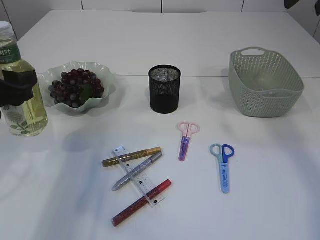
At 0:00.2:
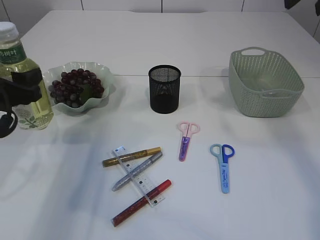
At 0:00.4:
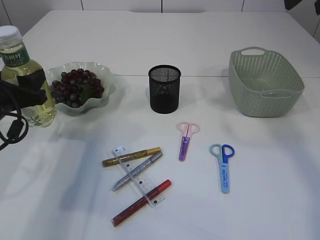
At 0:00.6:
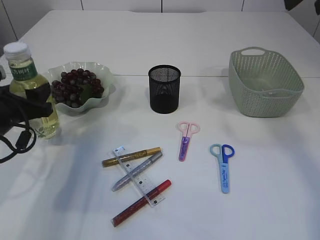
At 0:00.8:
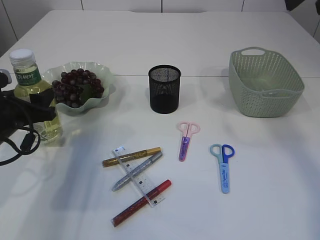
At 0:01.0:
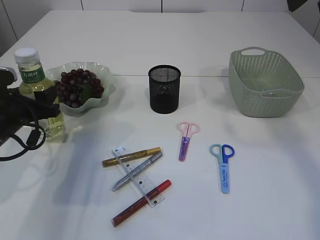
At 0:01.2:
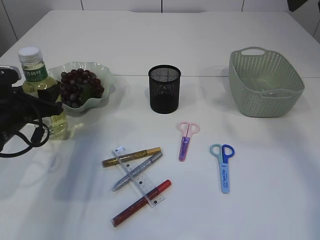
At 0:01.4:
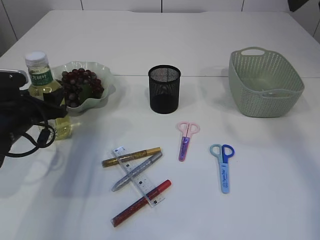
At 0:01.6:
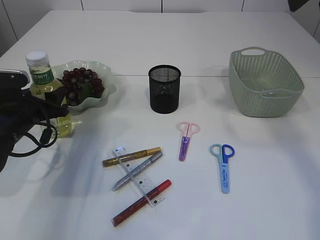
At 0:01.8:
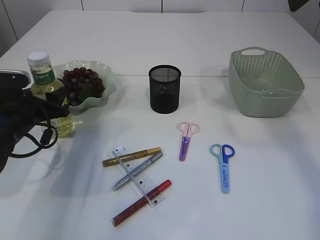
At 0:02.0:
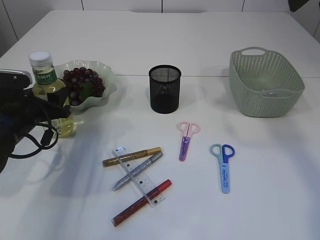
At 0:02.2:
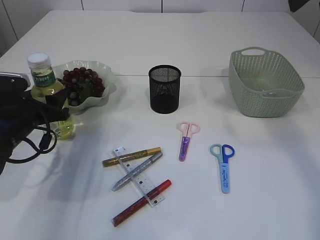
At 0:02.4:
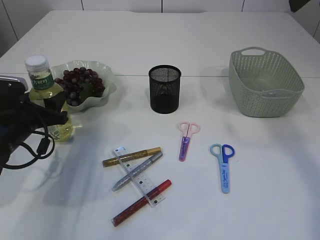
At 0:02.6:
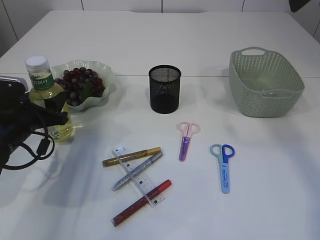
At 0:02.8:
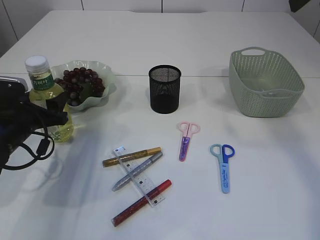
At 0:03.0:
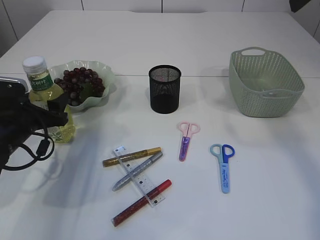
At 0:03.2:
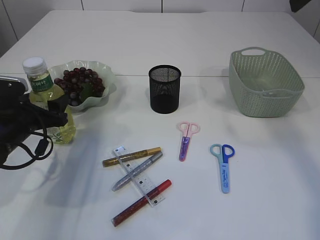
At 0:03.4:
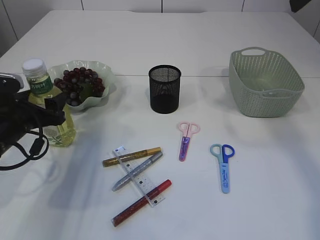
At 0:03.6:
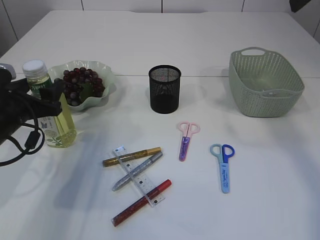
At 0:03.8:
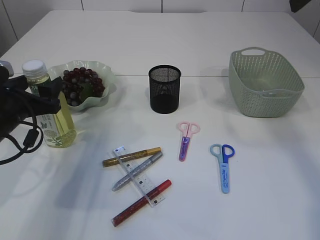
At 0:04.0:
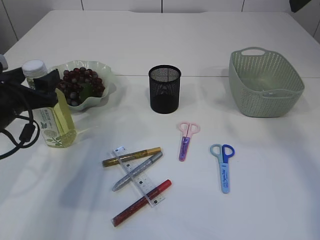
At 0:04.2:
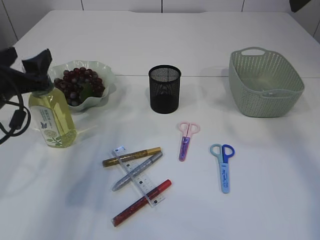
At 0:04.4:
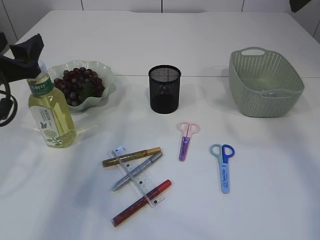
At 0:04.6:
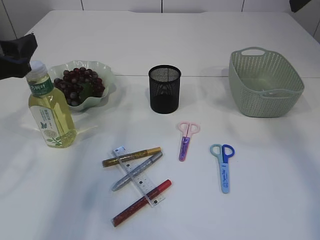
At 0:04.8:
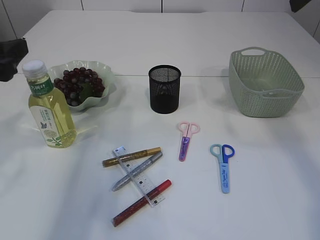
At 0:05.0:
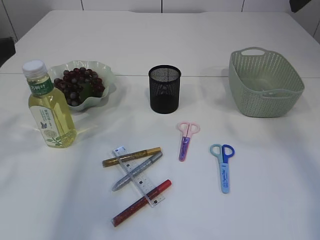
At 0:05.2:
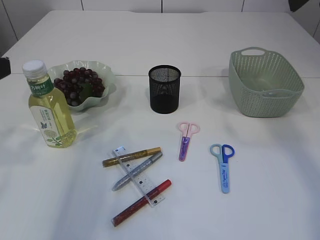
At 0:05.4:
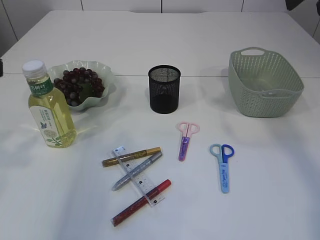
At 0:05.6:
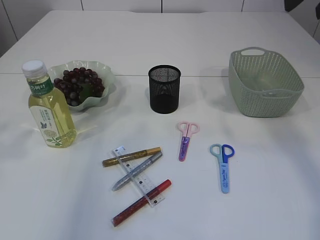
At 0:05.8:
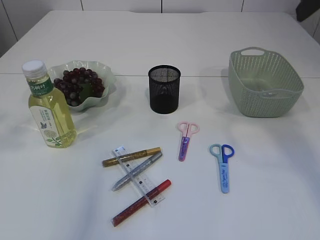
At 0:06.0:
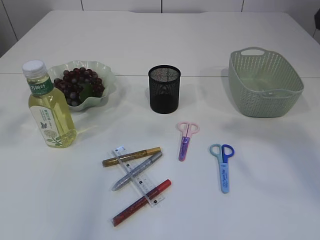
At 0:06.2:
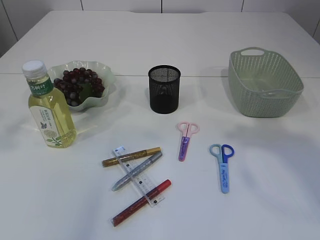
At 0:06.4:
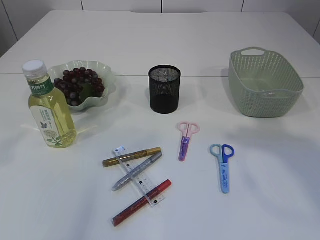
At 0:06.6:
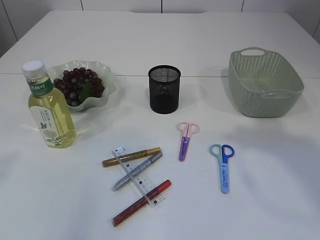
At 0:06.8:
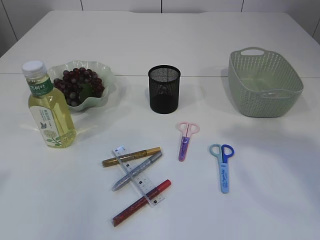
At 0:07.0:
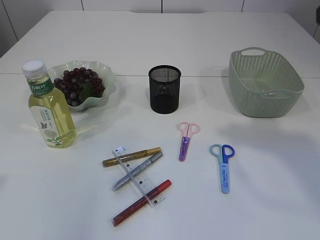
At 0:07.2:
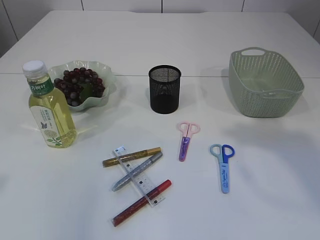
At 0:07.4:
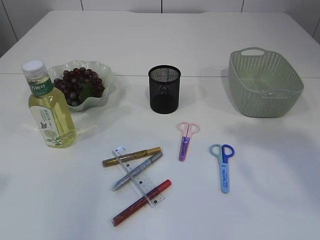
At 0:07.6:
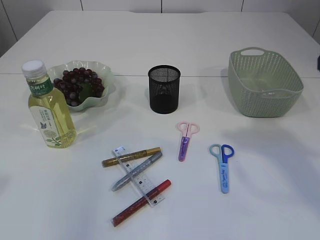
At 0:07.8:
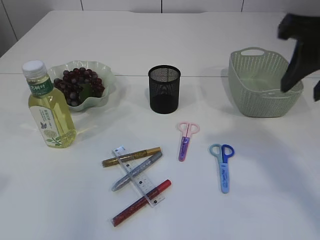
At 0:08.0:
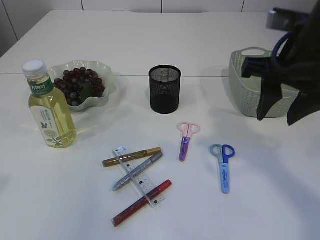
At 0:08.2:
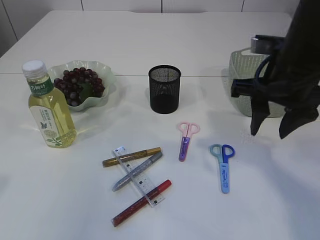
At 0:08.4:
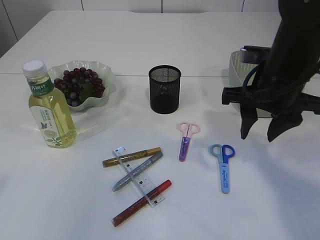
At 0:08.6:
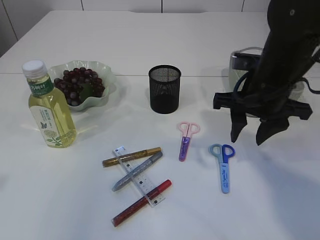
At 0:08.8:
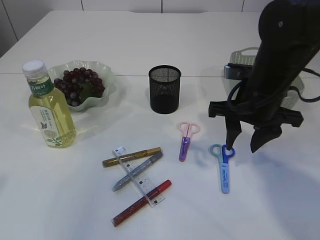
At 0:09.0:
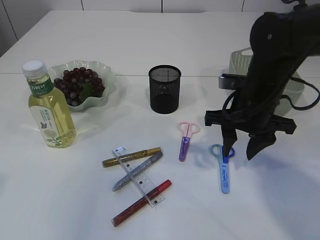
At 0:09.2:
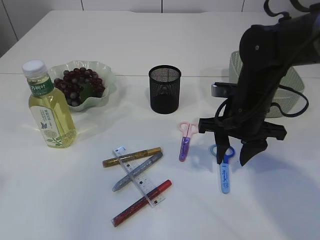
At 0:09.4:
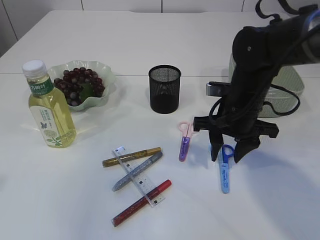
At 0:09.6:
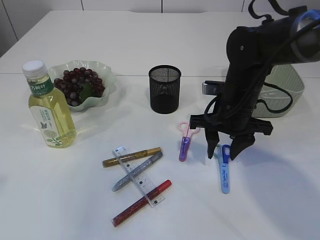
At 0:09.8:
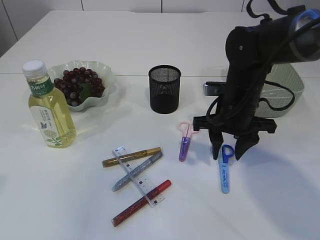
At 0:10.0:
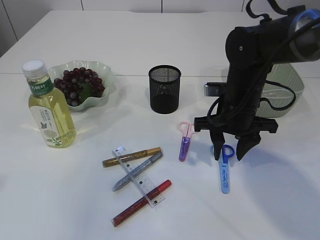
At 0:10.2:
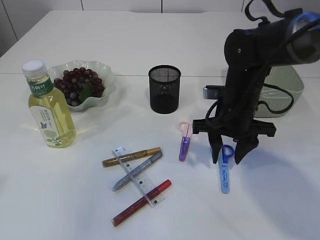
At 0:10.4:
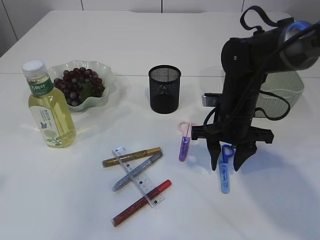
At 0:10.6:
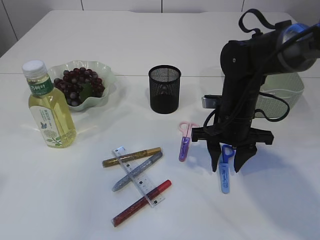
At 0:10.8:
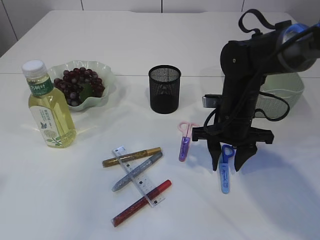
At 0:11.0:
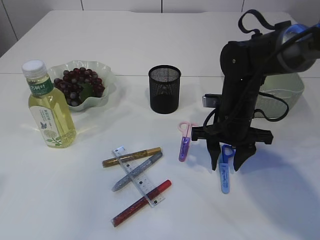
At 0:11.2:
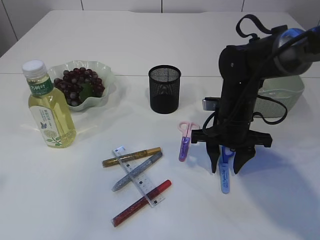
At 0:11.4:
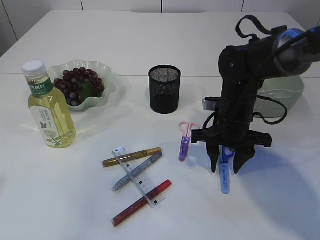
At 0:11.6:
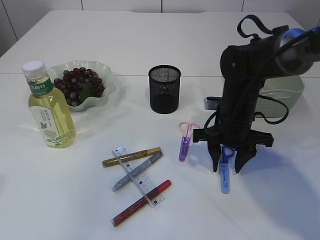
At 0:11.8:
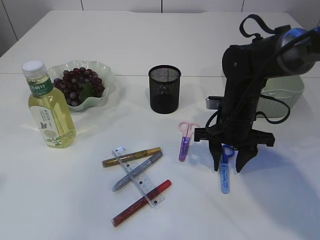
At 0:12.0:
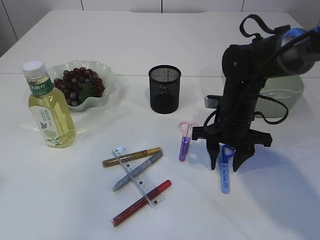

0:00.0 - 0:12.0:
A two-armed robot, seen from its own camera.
Step, 0:00.0 - 0:04.4: Place the bottle.
0:00.0 - 0:01.6: The left gripper is displaced downward and forward by roughly 10 cm.
0:01.6 - 0:03.0: The grippers make only small movements.
0:03.0 - 0:04.4: The left gripper heads upward, covering some 10 cm.
0:04.4 - 0:06.0: The right gripper heads backward, covering approximately 10 cm, while the left gripper travels upward and backward by roughly 20 cm.
0:07.6 - 0:09.0: The right gripper heads downward, forward and to the left, covering roughly 25 cm.
0:09.0 - 0:10.4: The right gripper shifts by roughly 5 cm.
0:10.4 - 0:12.0: There are only small adjustments of the grippers.

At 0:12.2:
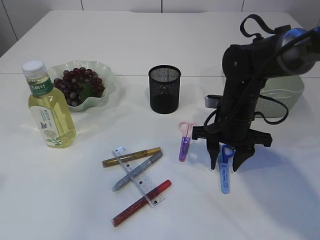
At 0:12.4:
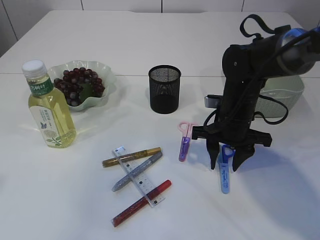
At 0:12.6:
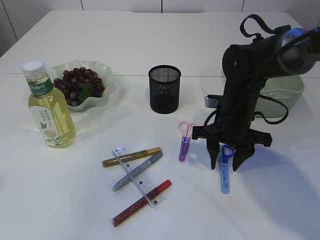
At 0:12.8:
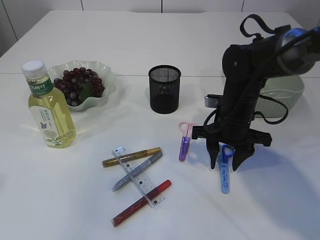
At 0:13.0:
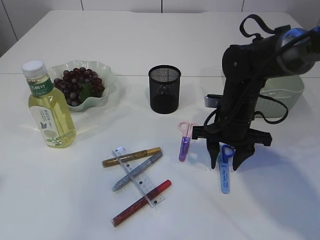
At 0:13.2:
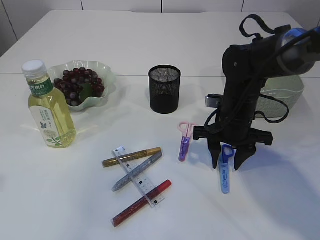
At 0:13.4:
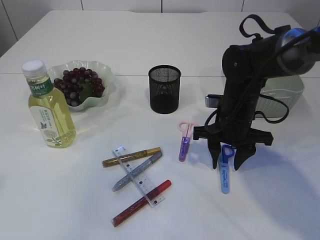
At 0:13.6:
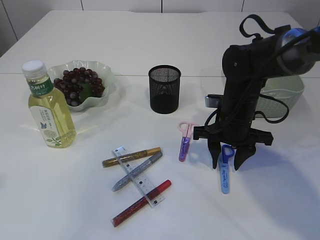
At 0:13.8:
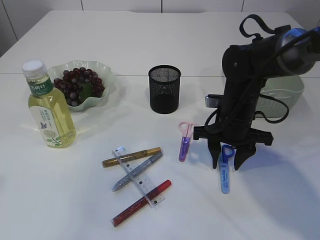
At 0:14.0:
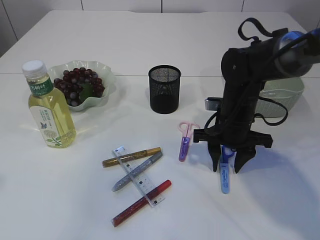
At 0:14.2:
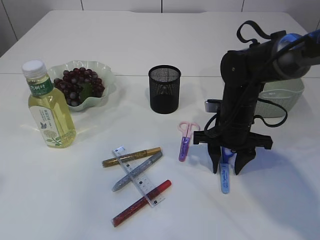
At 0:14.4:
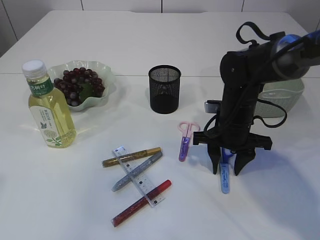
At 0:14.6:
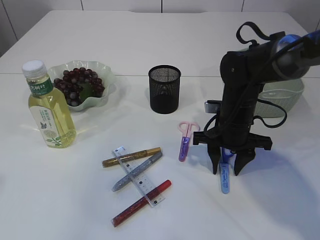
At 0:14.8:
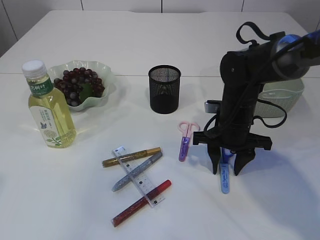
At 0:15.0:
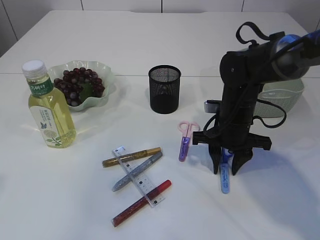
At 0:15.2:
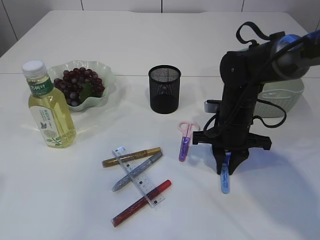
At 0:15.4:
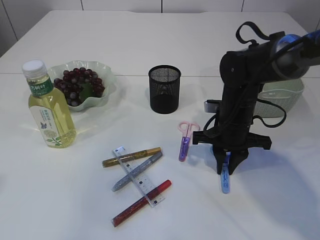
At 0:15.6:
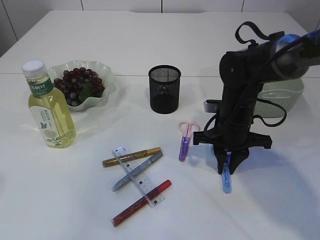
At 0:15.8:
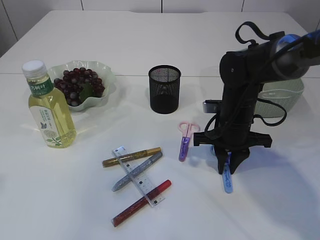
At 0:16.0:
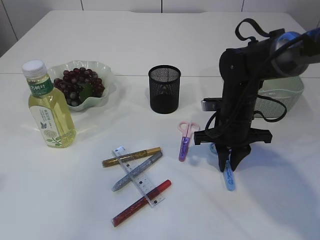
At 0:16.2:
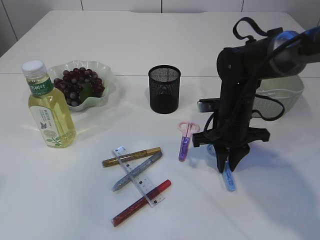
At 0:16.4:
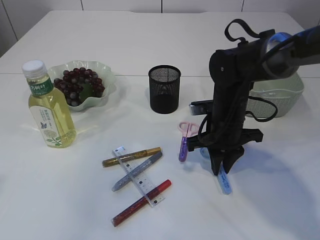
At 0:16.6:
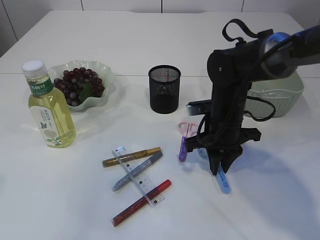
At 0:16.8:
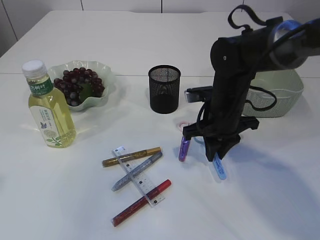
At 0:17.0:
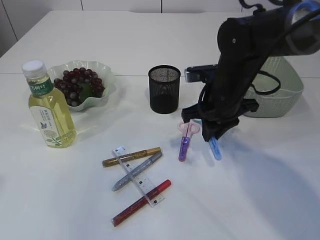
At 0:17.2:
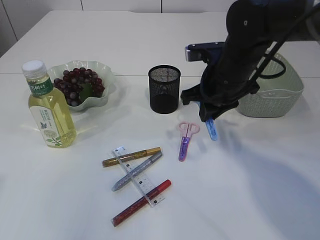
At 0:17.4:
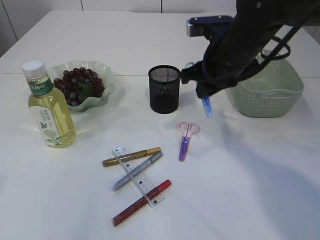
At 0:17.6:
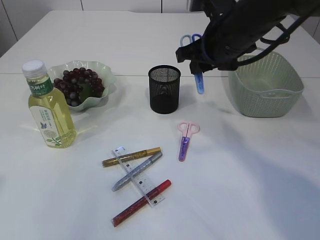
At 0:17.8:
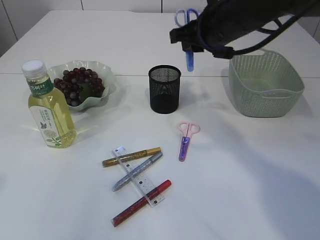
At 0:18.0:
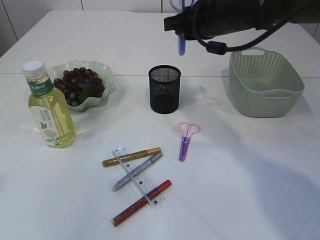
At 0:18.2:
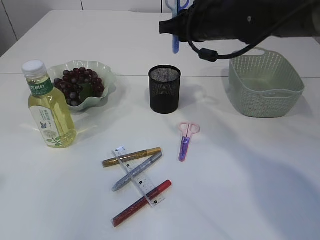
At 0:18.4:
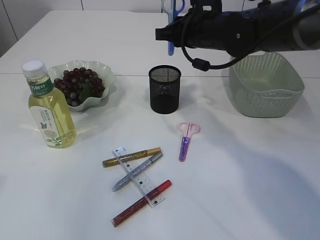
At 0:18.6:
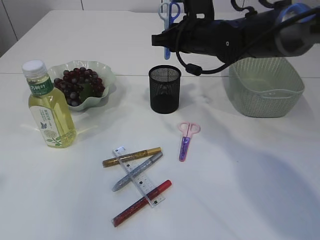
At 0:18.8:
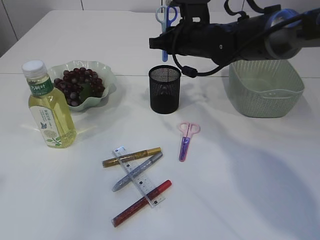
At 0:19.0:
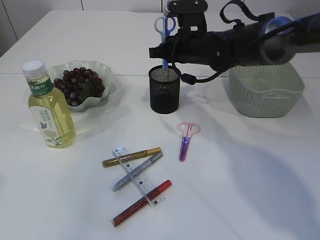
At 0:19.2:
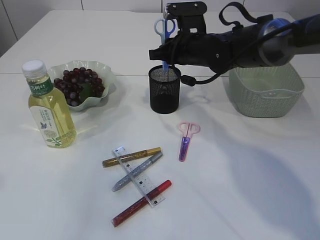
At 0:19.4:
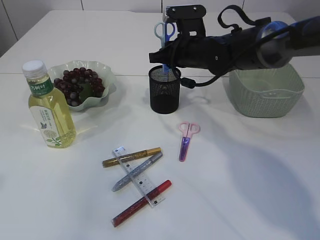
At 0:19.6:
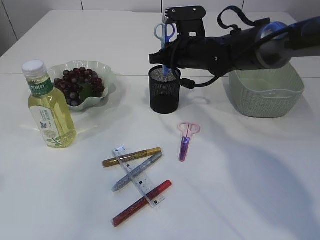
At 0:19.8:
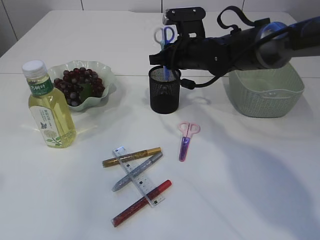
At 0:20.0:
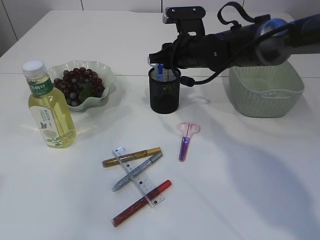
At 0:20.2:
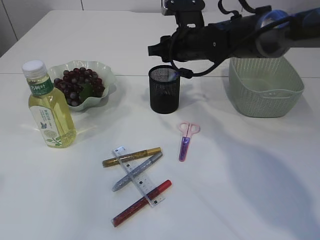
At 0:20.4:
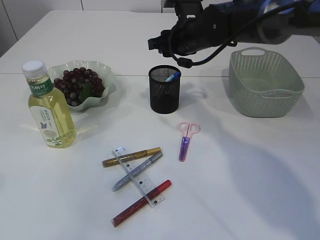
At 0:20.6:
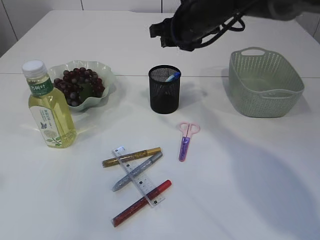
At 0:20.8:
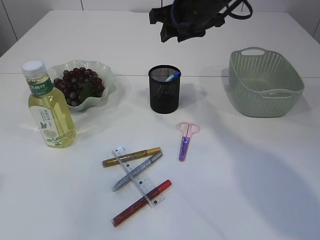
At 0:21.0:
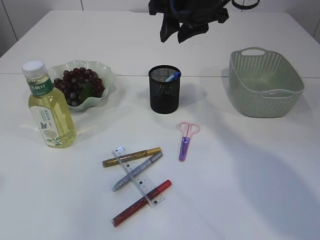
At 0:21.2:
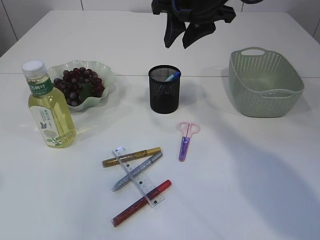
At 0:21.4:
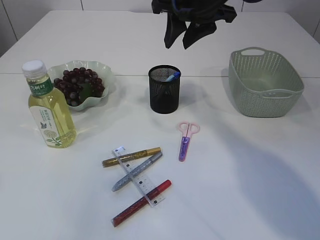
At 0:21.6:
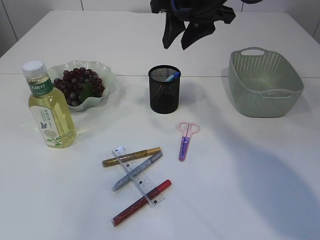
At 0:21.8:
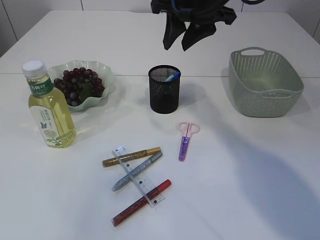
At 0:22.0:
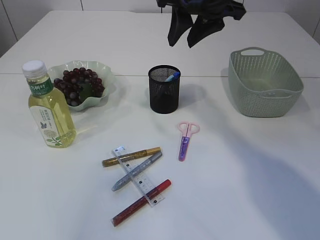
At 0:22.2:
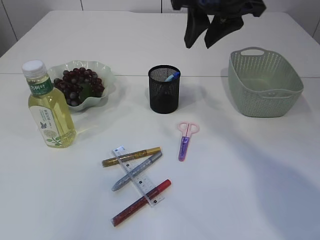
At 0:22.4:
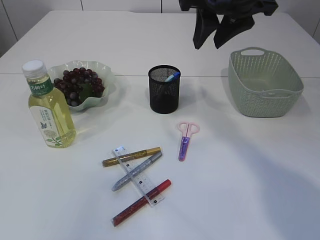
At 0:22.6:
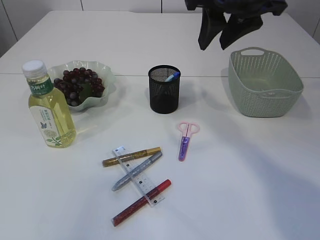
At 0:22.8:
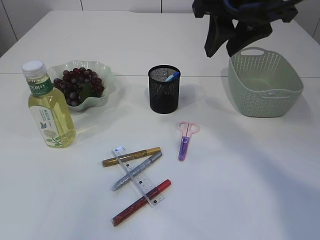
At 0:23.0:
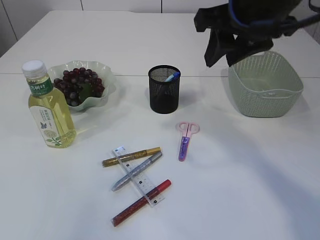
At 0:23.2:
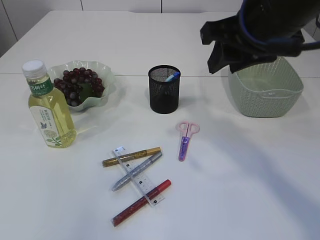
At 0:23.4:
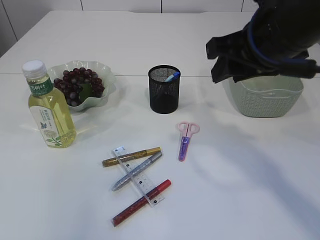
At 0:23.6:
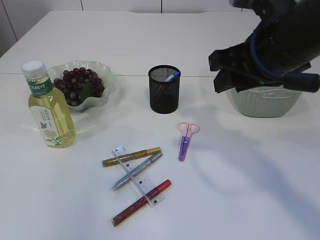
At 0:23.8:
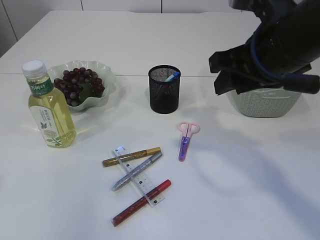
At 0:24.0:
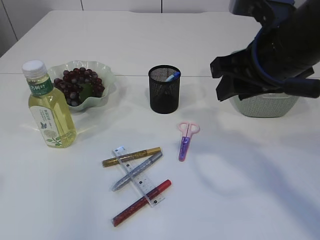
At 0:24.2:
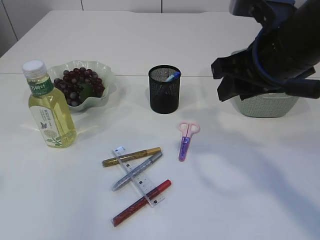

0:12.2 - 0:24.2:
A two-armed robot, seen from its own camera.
Step, 0:12.2 - 0:17.2: pick up the blue scissors.
Step, 0:17.4 - 0:20.6: Place the blue scissors into the pen holder.
0:12.2 - 0:13.8: The two grippers keep their place.
0:13.8 - 0:15.2: The right gripper closes.
0:15.2 - 0:16.6: There are only small adjustments of the grippers.
0:16.6 - 0:18.2: The right gripper shifts roughly 15 cm upward.
0:18.2 - 0:19.8: The right gripper is displaced downward by some 10 cm.
0:19.8 - 0:21.2: The right gripper moves upward, about 15 cm.
0:21.2 - 0:22.6: The right gripper goes about 5 cm backward.
0:22.6 - 0:24.2: The right gripper moves backward and downward, some 10 cm.
